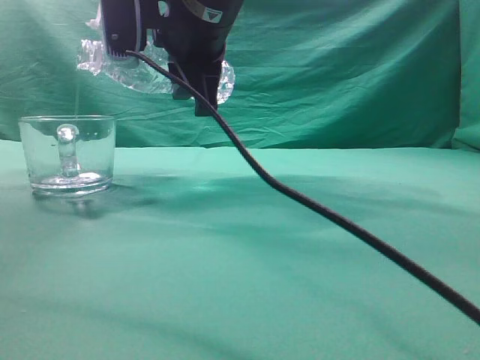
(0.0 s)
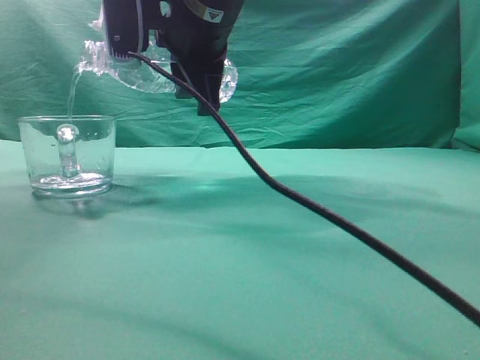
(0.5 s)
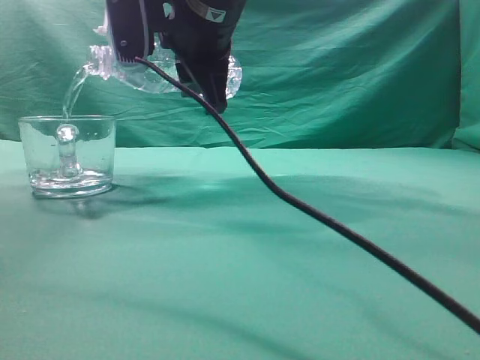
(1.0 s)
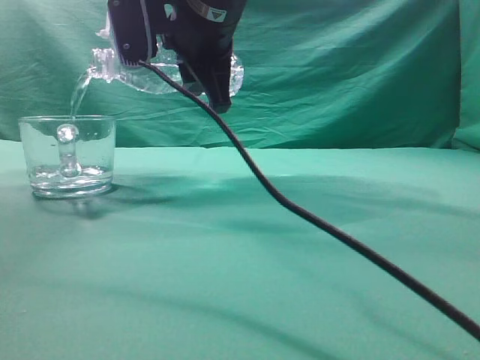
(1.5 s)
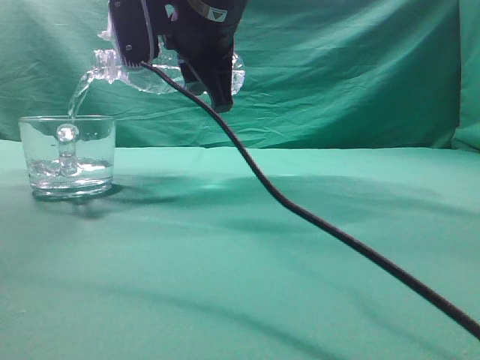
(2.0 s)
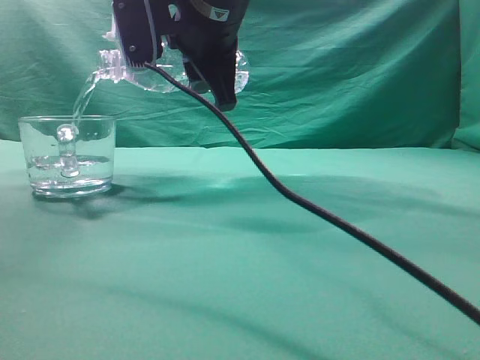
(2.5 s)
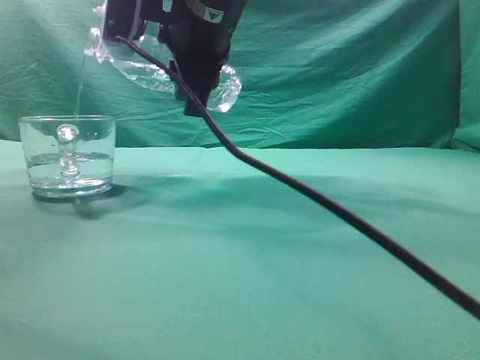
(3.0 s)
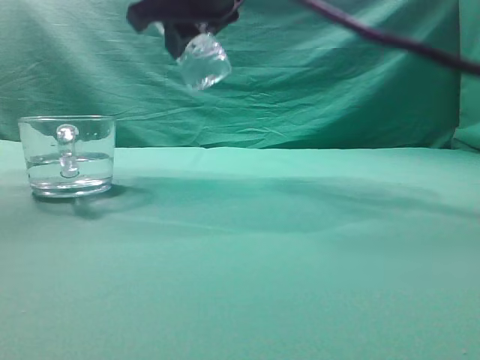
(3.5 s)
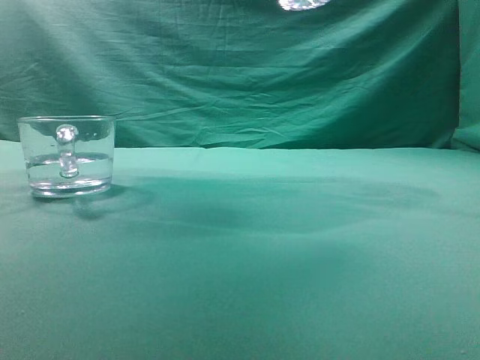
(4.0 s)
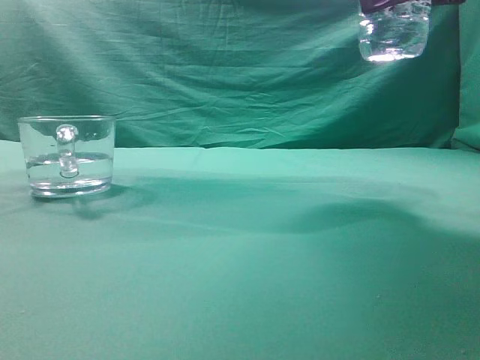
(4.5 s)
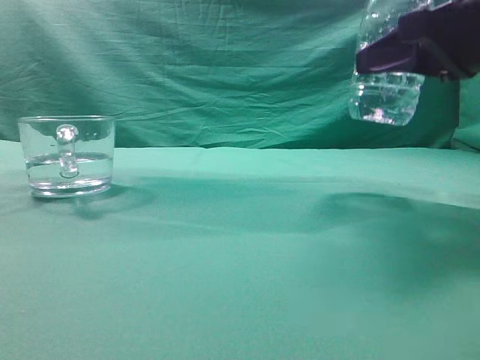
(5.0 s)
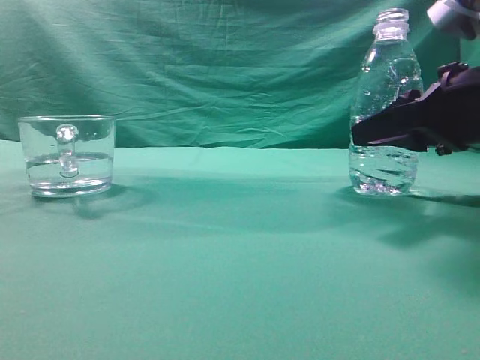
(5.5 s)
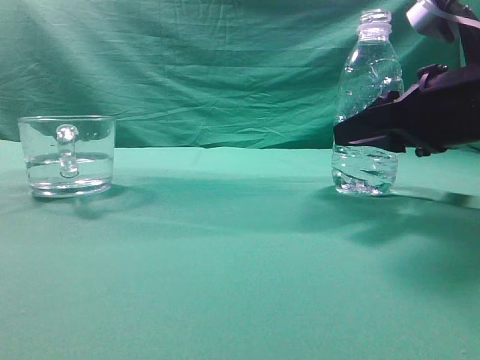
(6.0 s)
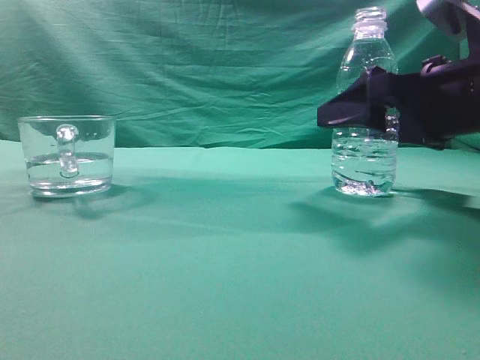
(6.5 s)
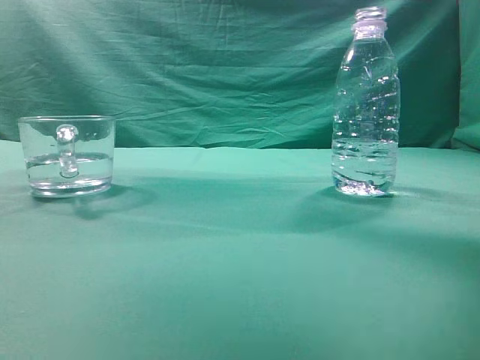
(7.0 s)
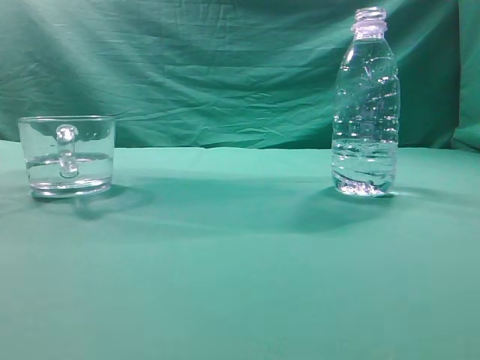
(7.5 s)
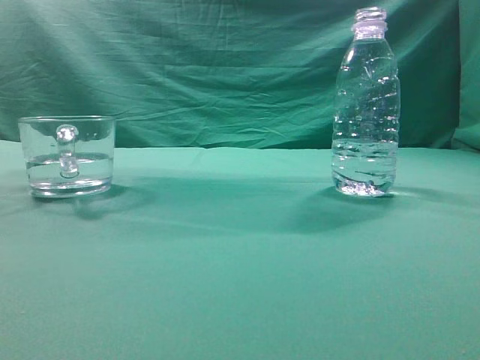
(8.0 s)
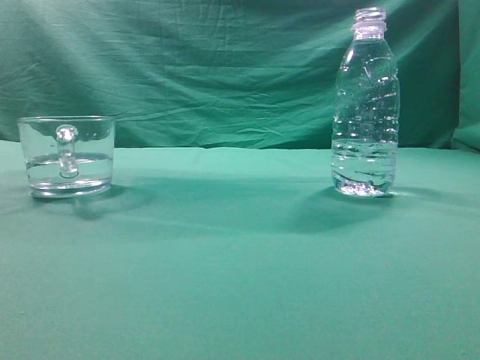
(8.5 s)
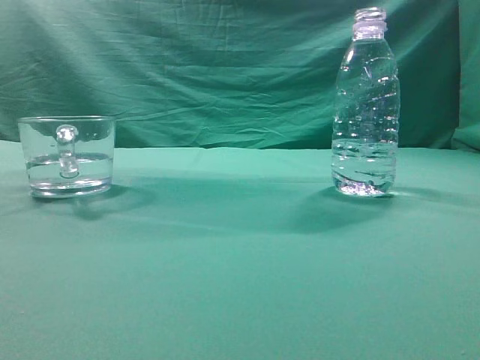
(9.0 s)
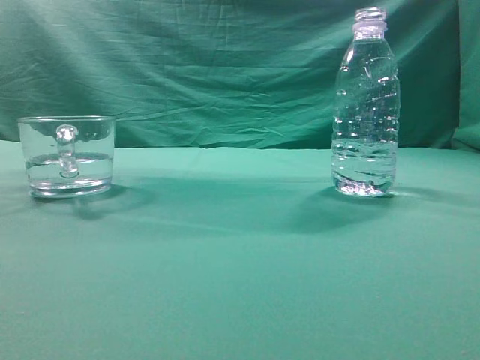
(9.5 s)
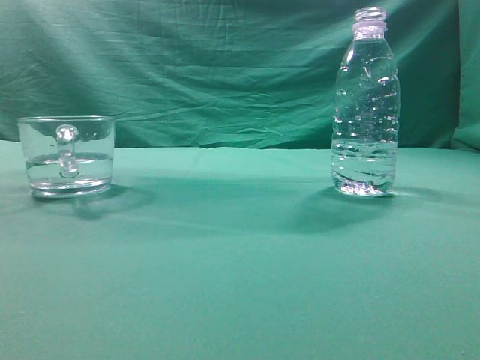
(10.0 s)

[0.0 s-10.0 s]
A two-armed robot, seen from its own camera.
Task of the whole recording: pick up the water bottle and pour the water in it into the glass.
Step, 0.0 to 3.0 s: Pour water into the teacup.
0.0 to 2.0 s: The grippers stay close to where they were, moving slightly.
2.0 to 4.0 s: The right gripper is displaced to the right and upward by some 20 cm.
4.0 to 6.0 s: The right gripper goes approximately 20 cm downward.
6.0 to 8.0 s: The right gripper goes some 35 cm upward and backward, and closes.
